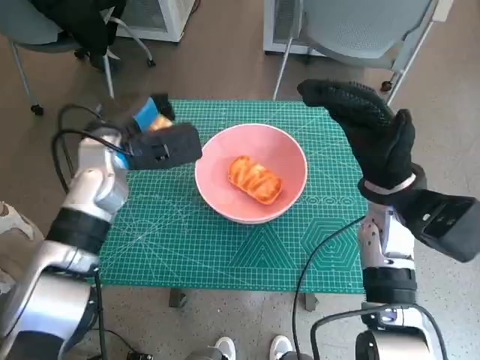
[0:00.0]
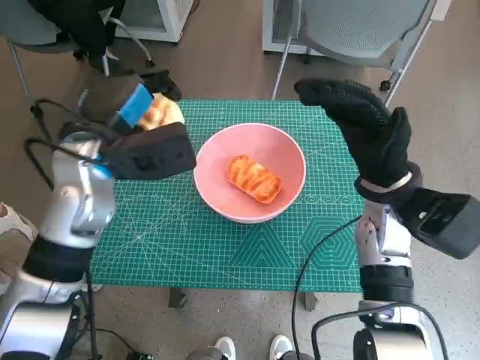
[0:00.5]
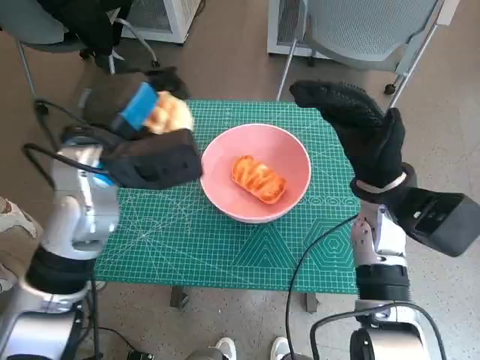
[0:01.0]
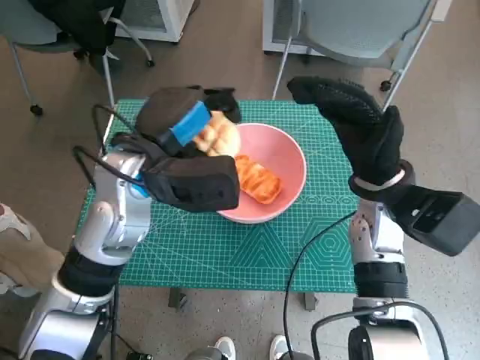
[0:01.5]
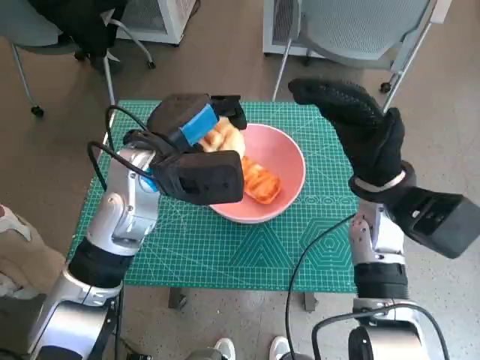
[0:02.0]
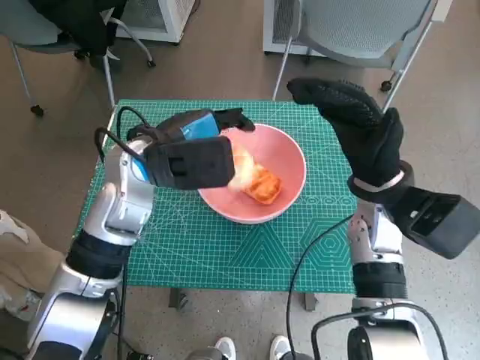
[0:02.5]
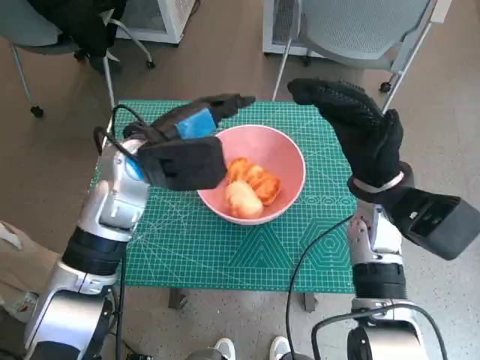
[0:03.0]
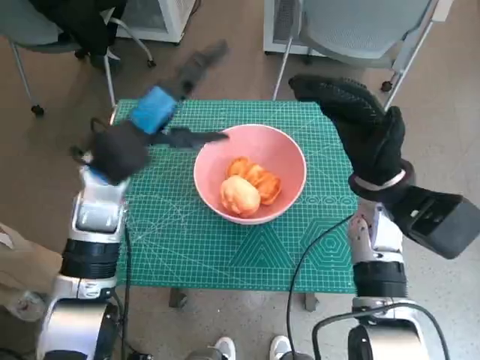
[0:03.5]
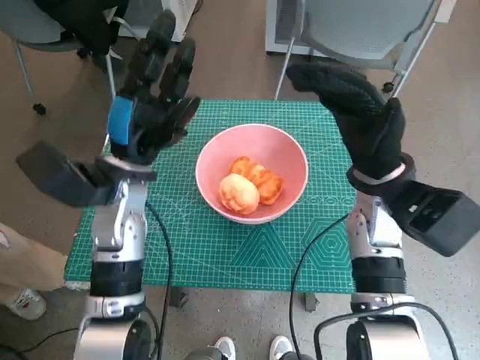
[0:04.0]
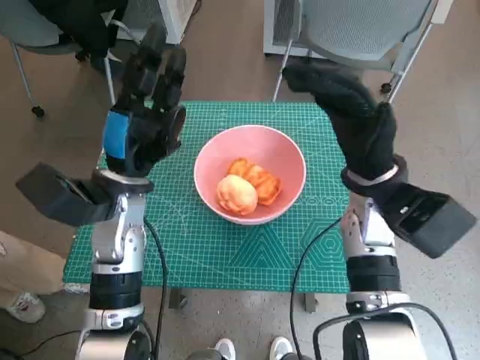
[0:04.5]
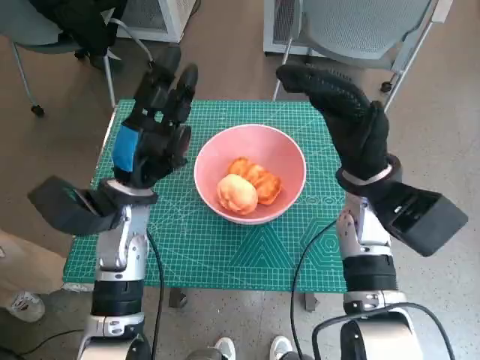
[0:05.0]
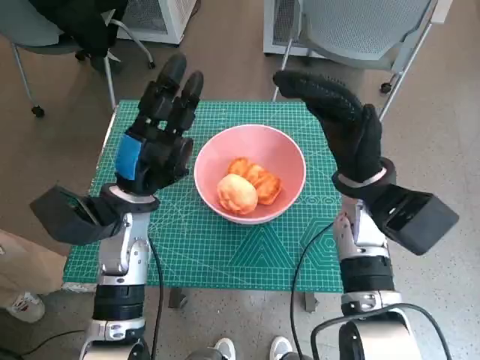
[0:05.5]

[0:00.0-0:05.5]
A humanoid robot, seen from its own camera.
Step, 0:00.0 to 0:02.5: Place the round bread in pink bowl with left hand.
0:00.0 to 0:02.0: The left hand is displaced to the right by some 5 cm.
0:03.5 to 0:05.5: The left hand moves downward, about 5 cm.
